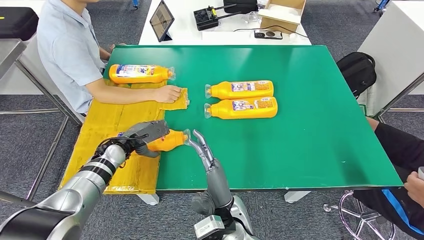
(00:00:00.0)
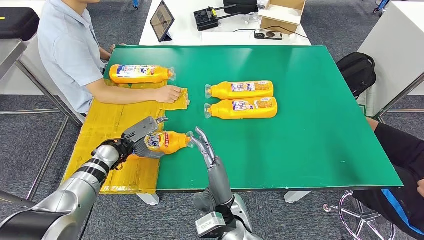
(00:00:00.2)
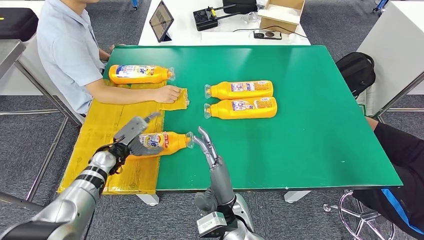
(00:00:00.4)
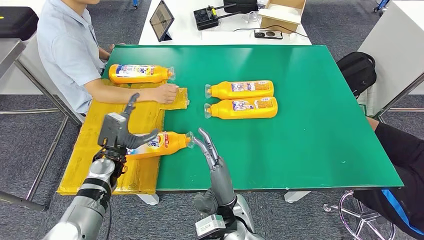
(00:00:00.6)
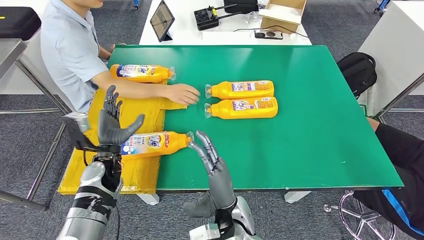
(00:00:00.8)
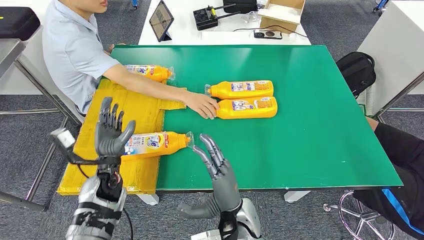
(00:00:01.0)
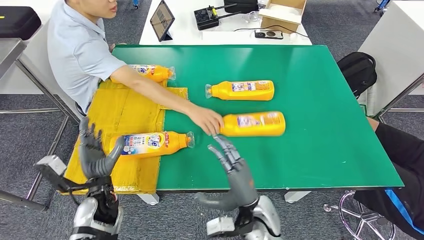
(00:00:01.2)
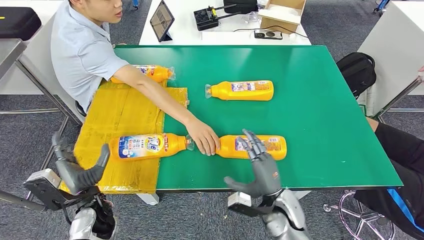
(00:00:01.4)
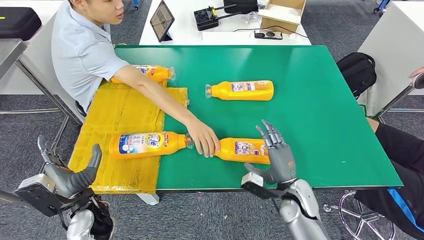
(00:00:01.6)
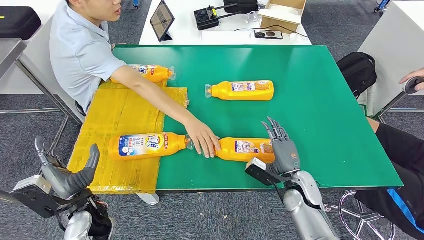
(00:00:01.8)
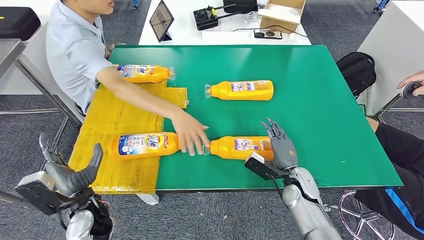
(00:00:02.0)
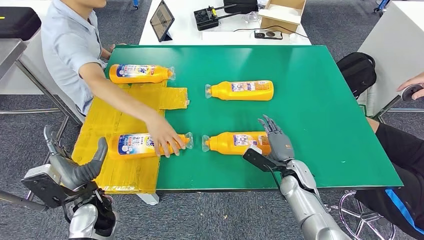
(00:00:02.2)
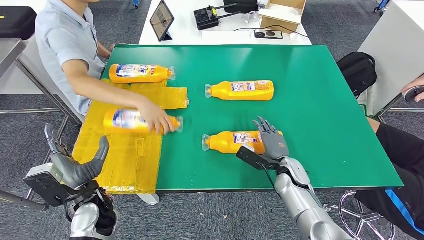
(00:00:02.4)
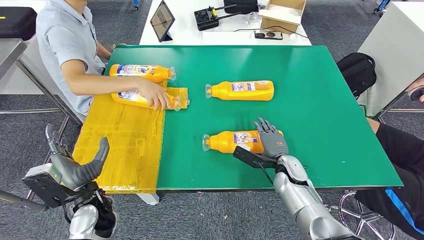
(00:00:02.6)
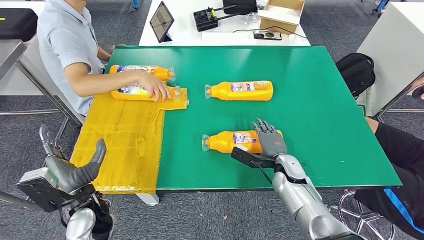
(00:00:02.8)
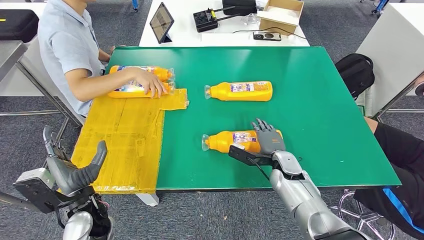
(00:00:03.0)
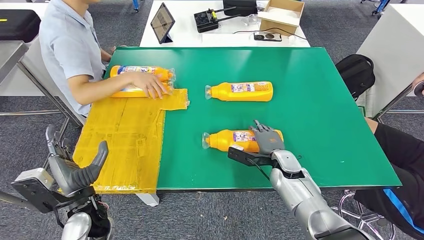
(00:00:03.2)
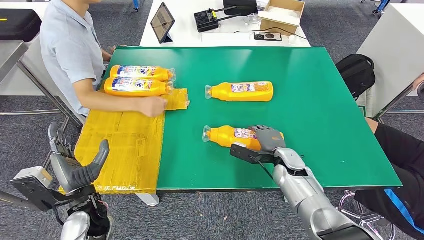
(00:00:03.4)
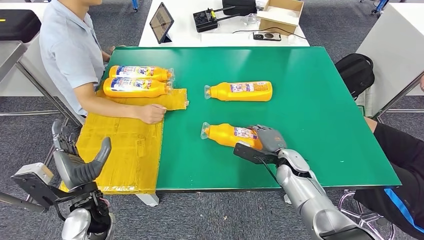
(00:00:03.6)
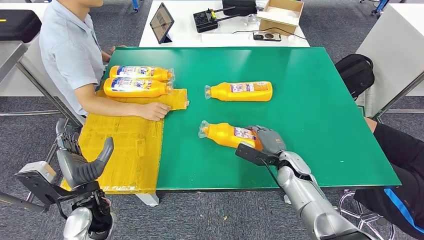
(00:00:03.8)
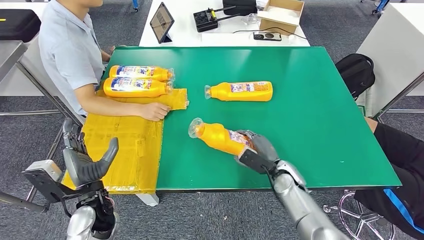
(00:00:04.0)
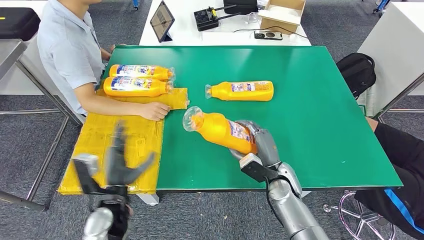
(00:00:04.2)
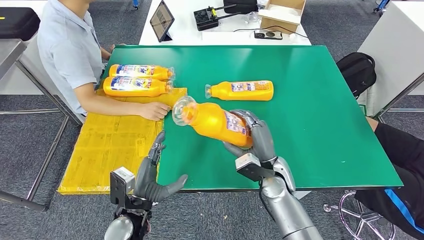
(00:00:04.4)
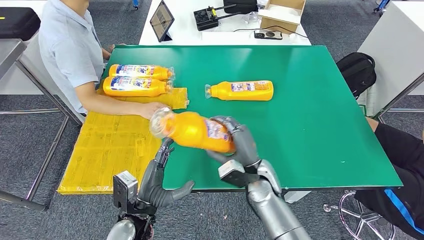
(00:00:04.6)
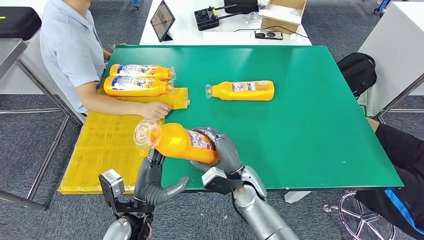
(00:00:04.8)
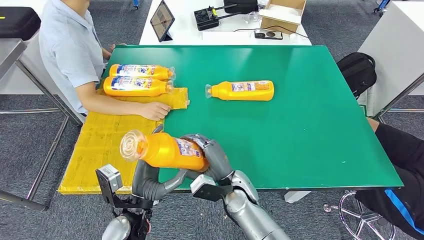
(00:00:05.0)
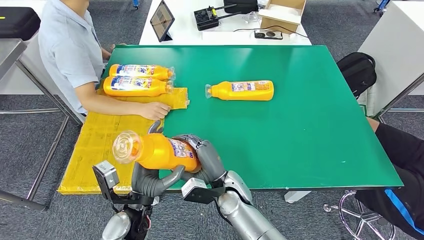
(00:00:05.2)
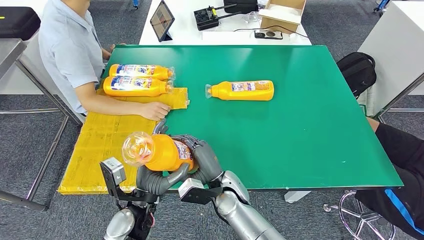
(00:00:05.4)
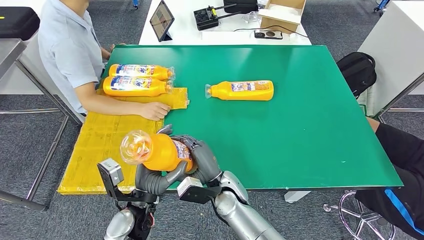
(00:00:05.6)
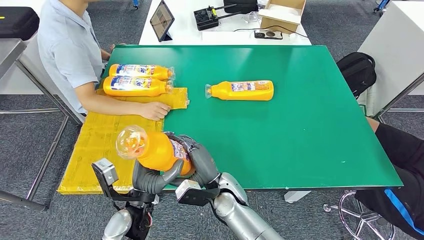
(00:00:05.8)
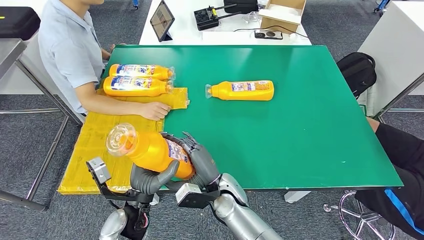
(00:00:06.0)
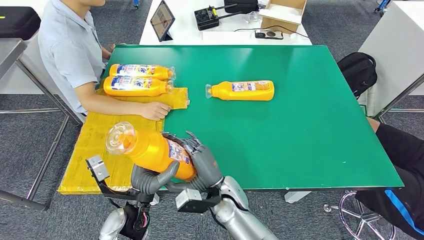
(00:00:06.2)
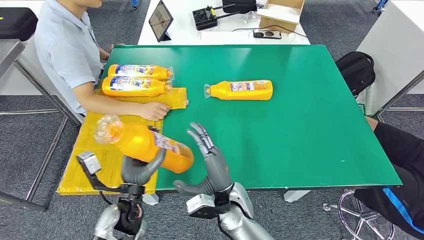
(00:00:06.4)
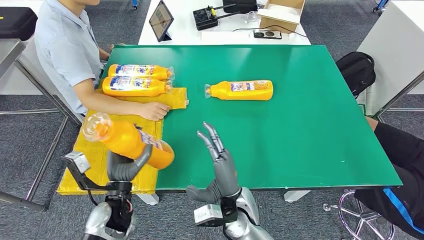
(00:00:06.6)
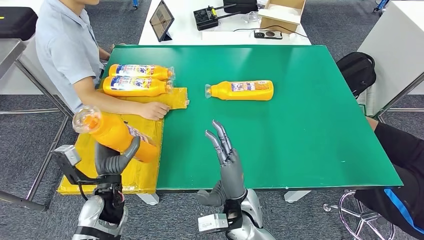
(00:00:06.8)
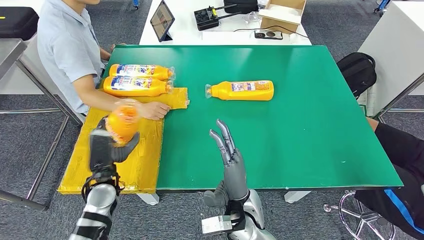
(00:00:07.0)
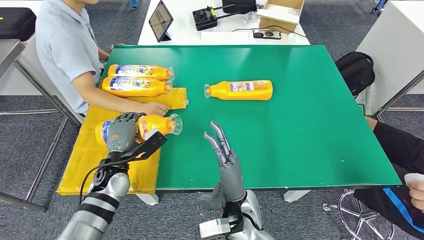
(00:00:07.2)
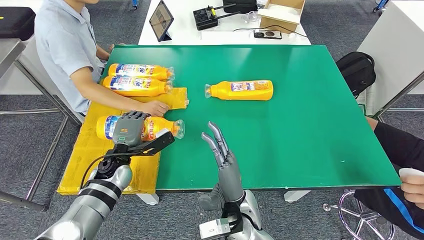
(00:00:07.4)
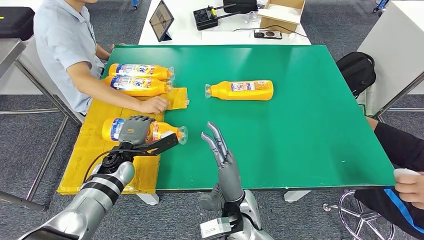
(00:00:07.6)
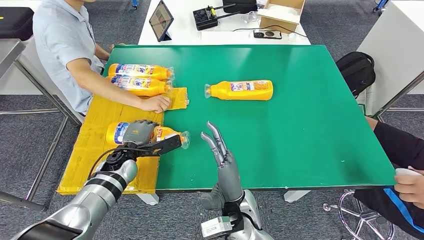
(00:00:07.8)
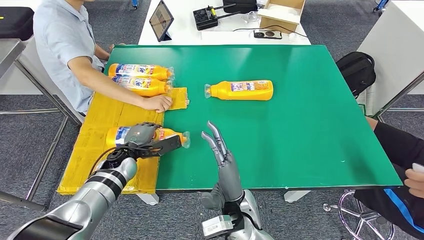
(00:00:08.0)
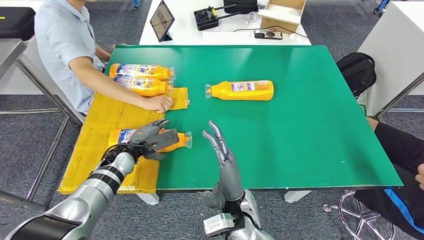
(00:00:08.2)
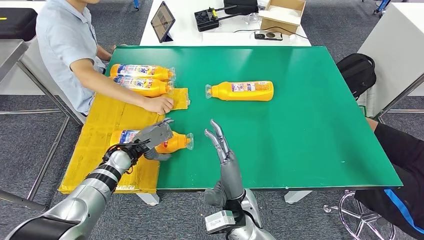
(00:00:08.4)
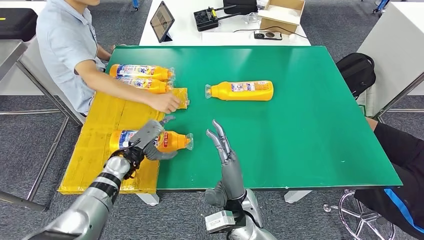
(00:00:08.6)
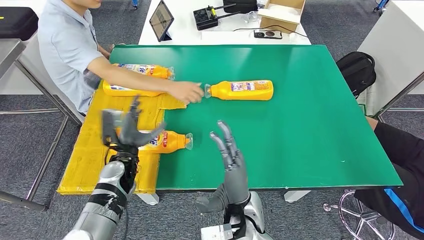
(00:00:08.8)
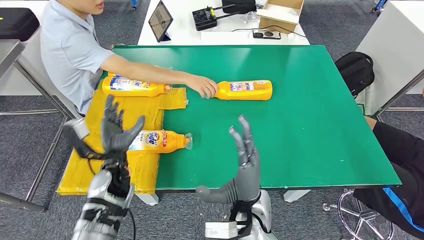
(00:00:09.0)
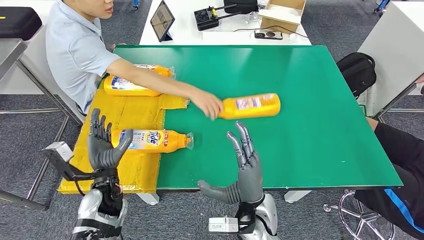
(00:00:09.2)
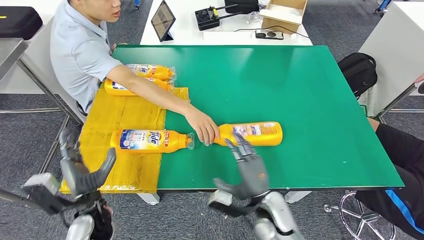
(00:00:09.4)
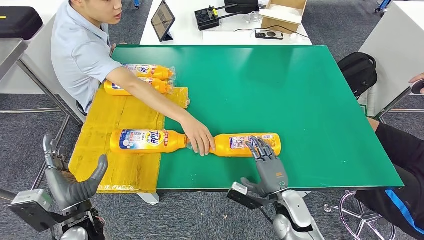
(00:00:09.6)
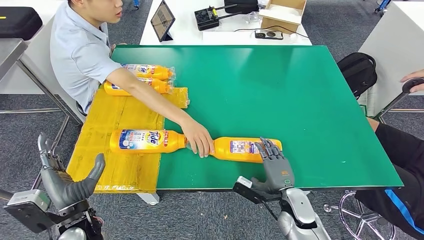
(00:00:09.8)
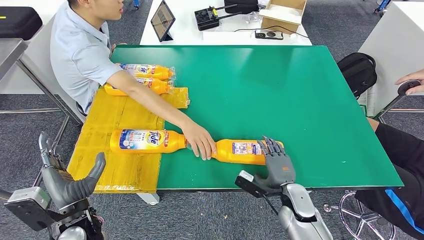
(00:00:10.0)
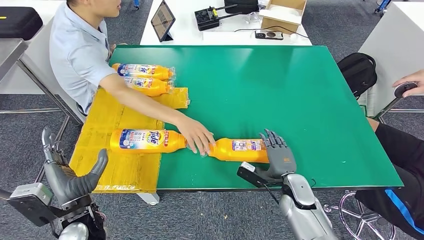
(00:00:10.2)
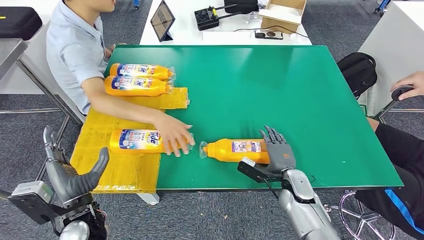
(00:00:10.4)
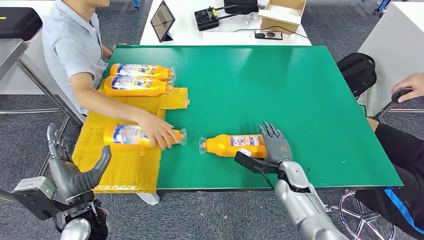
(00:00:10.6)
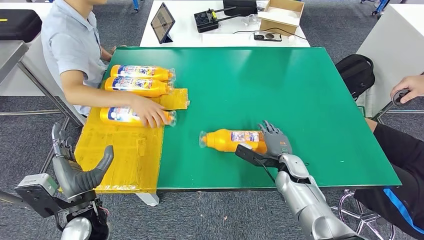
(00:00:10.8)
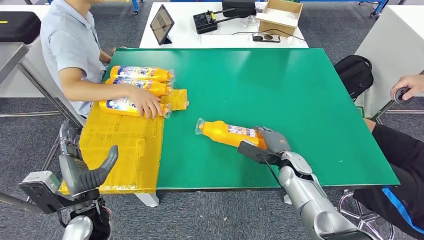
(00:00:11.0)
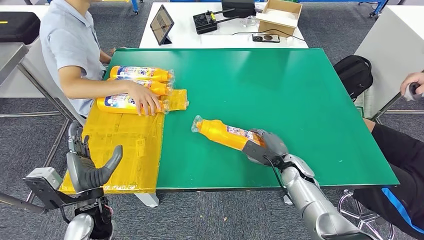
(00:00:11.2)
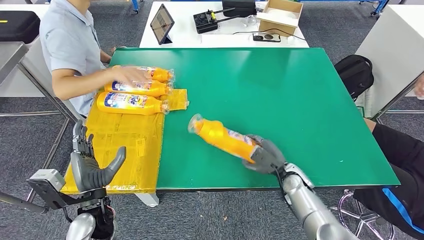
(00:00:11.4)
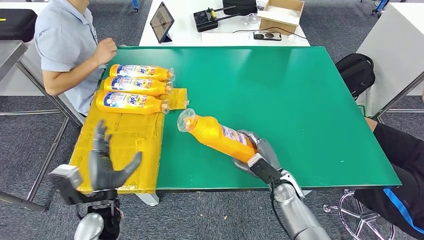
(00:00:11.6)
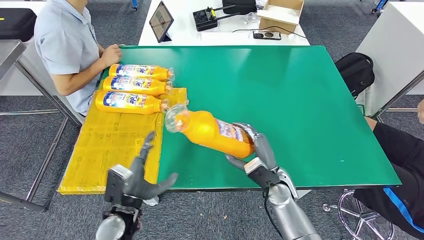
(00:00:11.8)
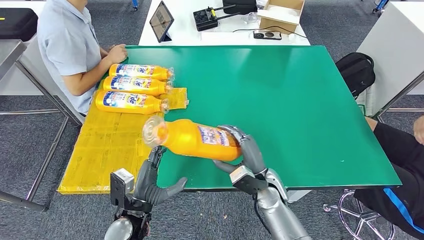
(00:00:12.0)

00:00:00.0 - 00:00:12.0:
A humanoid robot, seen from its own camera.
Step, 00:00:01.4 - 00:00:05.6: Pick up the fast-moving consumer goods bottle from the table.
Step, 00:00:05.8 - 00:00:09.0: Flip the fast-moving consumer goods bottle to the front side.
00:00:04.4 - 00:00:06.0: The right hand travels to the left by approximately 15 cm.
00:00:06.0 - 00:00:07.6: The right hand heads backward, covering roughly 5 cm. The left hand heads forward and to the left, covering approximately 15 cm.

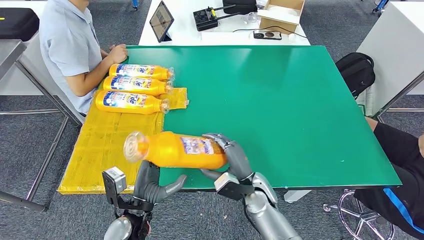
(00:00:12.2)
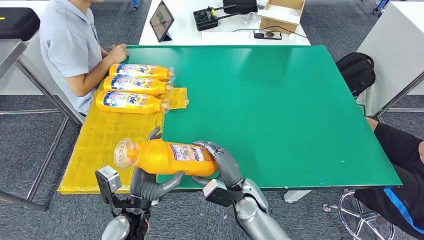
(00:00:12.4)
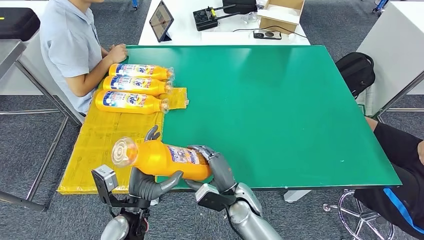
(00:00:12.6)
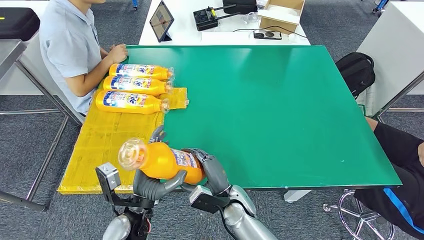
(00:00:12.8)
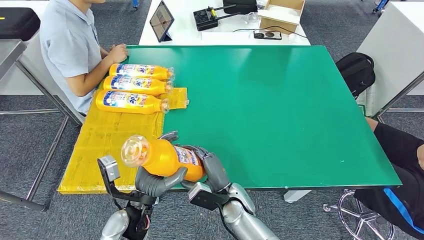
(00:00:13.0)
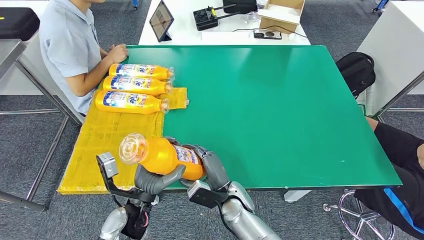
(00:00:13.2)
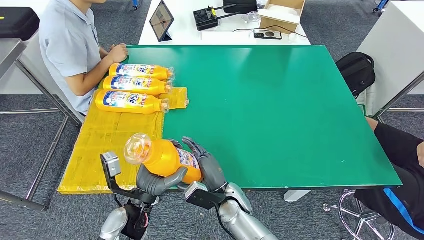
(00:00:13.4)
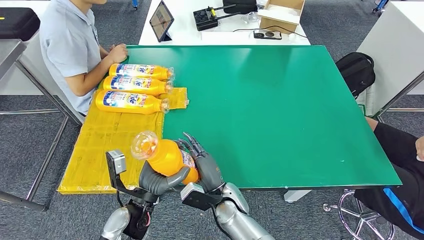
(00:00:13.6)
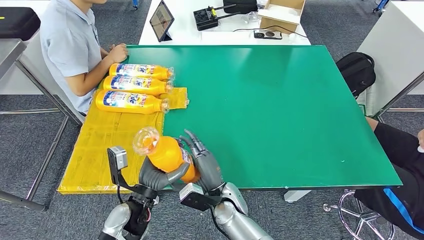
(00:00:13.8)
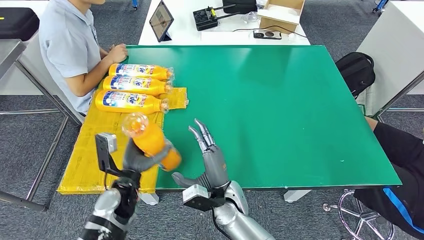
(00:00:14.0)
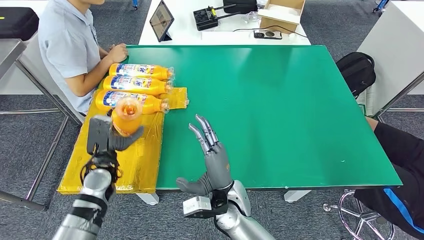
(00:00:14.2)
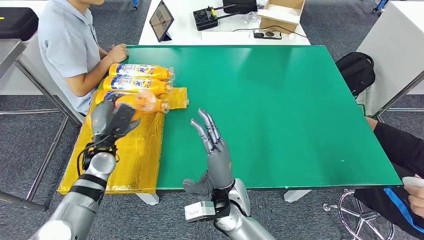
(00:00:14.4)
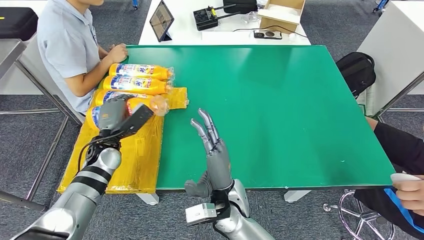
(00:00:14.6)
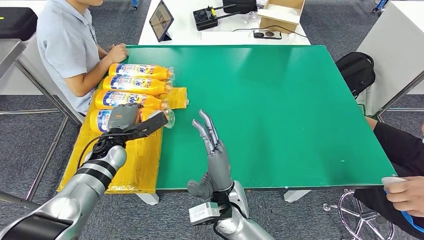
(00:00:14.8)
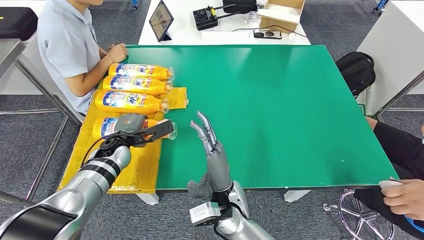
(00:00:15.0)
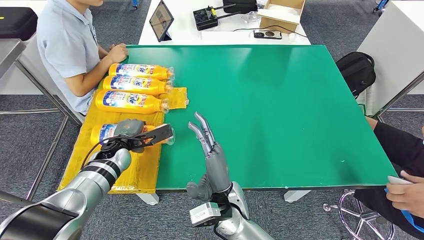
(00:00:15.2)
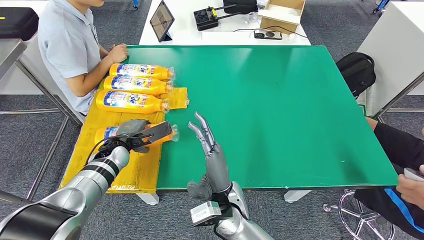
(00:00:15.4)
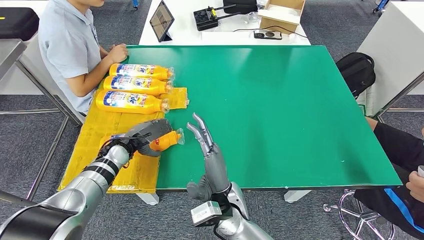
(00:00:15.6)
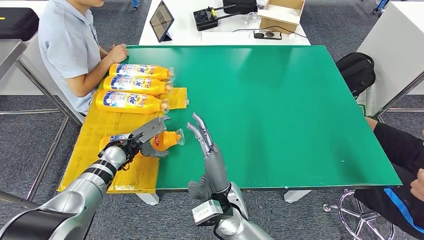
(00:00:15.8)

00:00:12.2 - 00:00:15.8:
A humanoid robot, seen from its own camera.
Step, 00:00:13.6 - 00:00:15.8: Flip the fast-moving consumer goods bottle to the front side.
00:00:12.2 - 00:00:14.0: The right hand travels to the left by some 10 cm; the left hand shifts about 5 cm forward.
00:00:14.0 - 00:00:15.8: The right hand is displaced upward by roughly 5 cm. The left hand goes about 15 cm forward and to the left.
